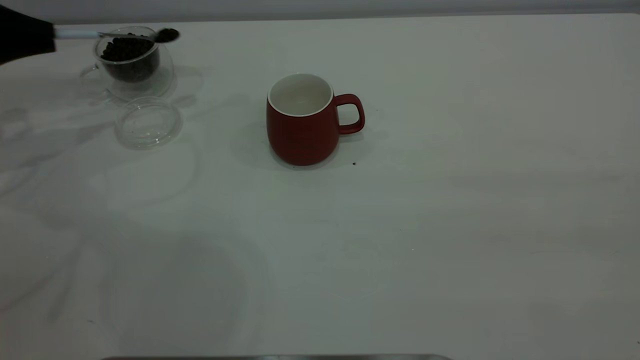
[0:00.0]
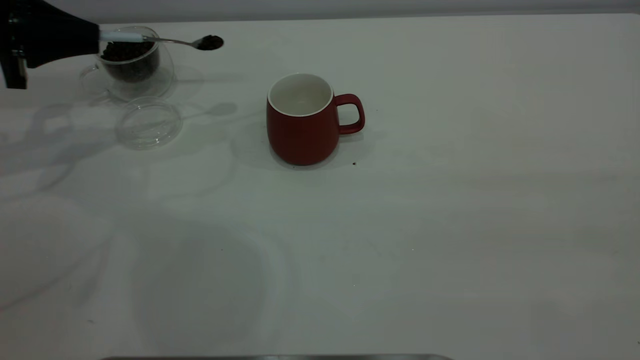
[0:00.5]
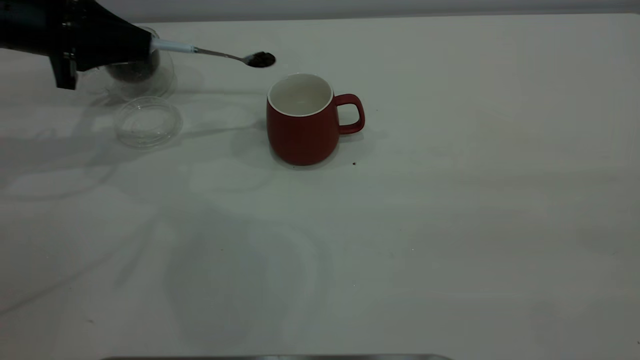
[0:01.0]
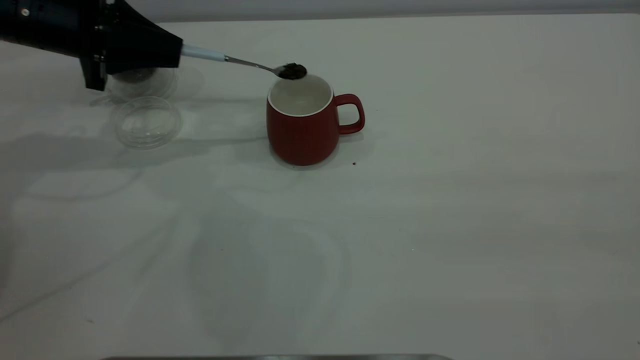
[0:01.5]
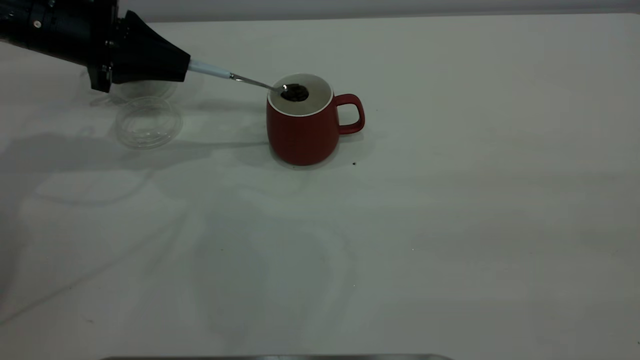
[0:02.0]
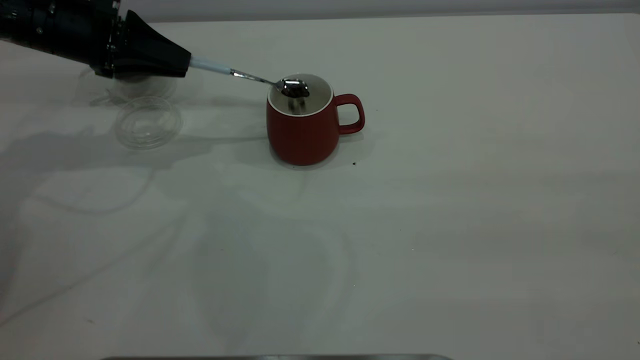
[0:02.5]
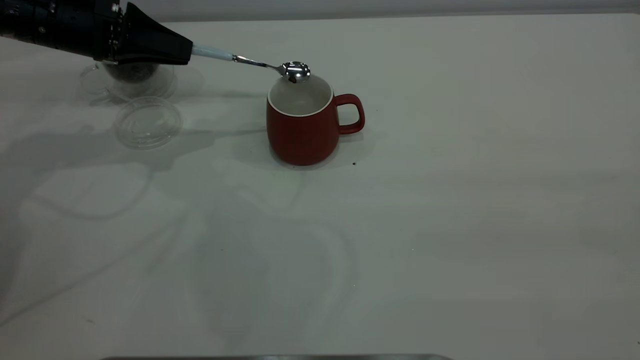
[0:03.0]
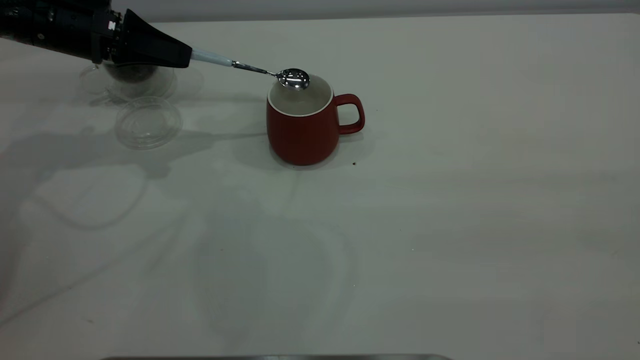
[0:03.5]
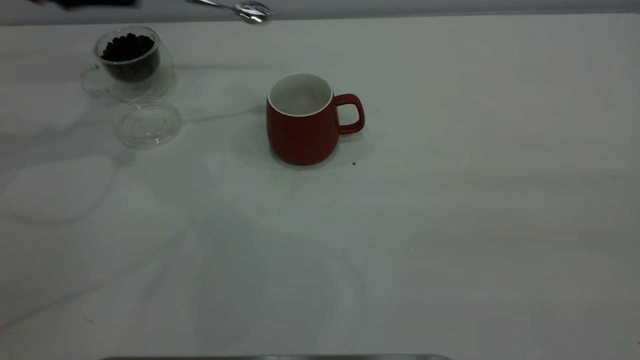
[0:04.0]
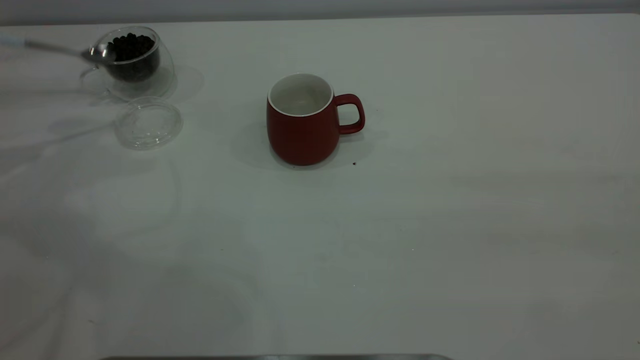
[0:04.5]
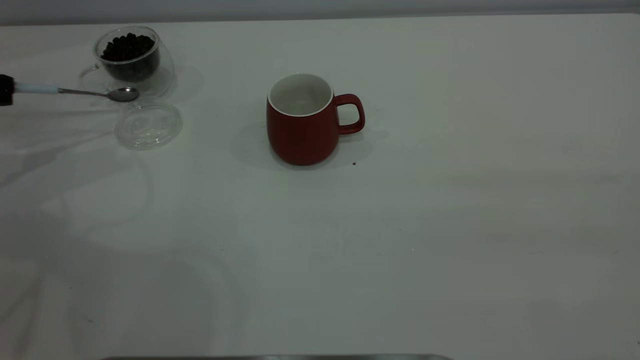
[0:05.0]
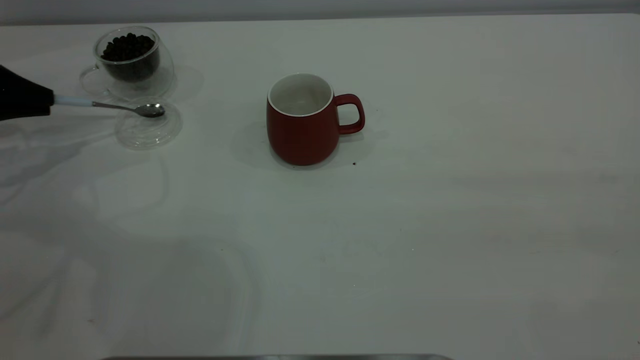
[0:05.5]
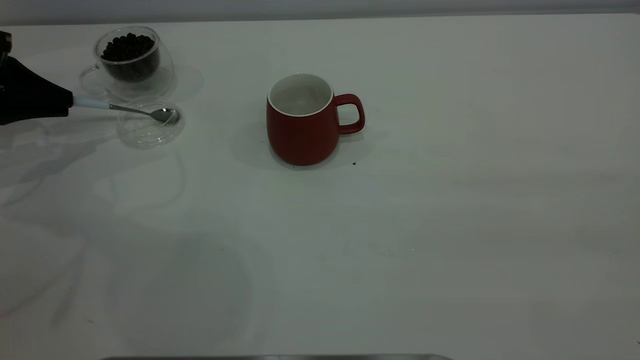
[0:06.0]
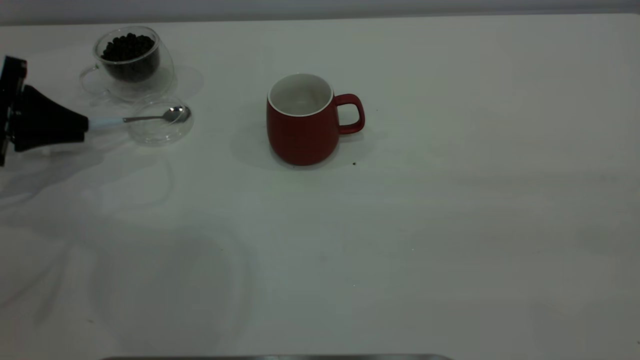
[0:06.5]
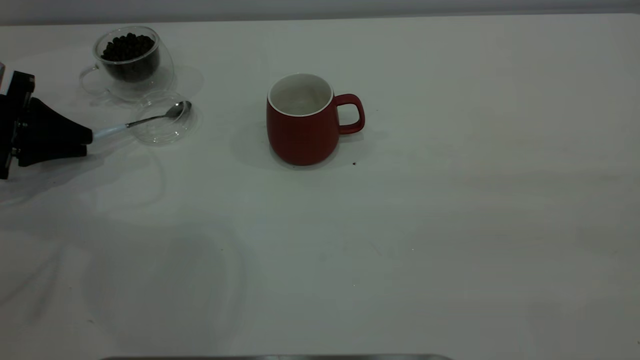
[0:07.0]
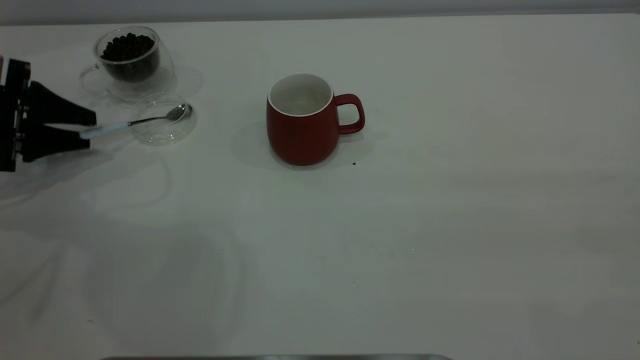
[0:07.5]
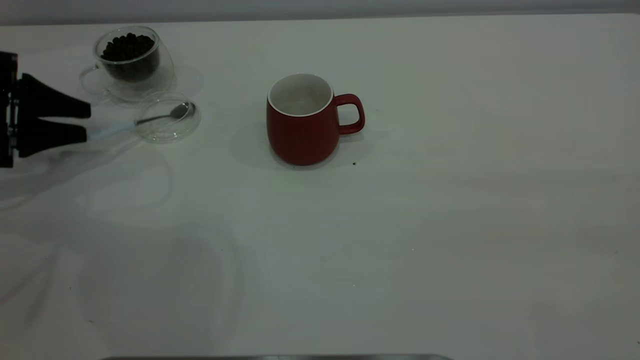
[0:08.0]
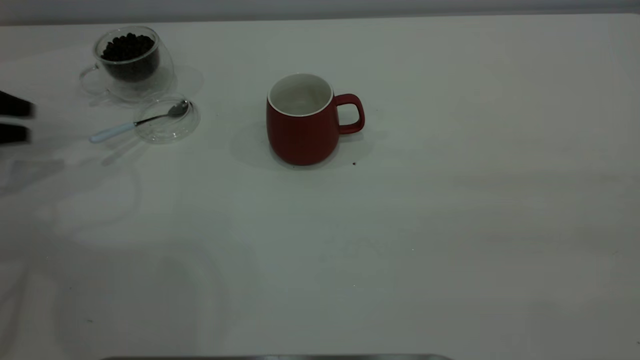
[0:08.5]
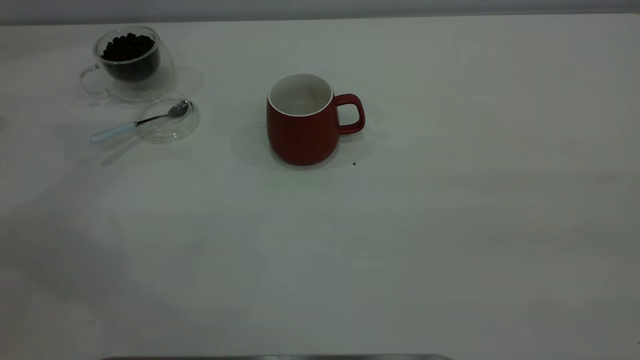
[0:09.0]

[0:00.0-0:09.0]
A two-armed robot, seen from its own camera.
Task of the whole recording: the right gripper place the red cup in the center of the table, the left gripper take the blue spoon from the cup lid and scoop out the coffee beans from the coffee cup and put them into the red cup, the left gripper put the spoon back into the cup lid.
Step, 0:00.0 to 0:03.5: Scoop a spoonful of beans into the cup.
Step, 0:04.0 to 0:08.0: Place the spoon back in its original place.
0:00.0 to 0:02.0: The left gripper is displaced to the right by some 15 cm.
0:02.0 to 0:04.5: The left gripper is displaced to the left by roughly 20 cm.
0:04.5 to 0:07.0: The left gripper goes roughly 15 cm downward and to the right.
0:07.0 to 0:09.0: The left gripper is displaced upward by about 25 cm.
